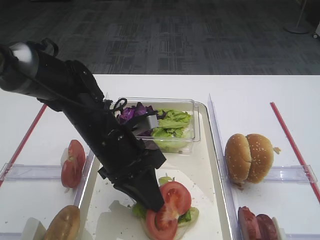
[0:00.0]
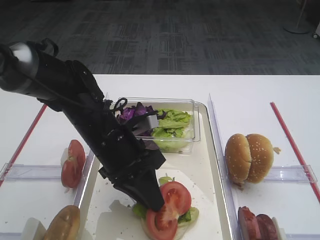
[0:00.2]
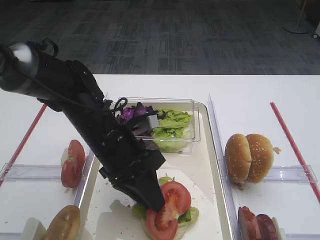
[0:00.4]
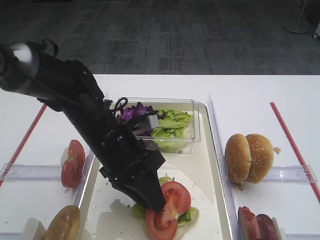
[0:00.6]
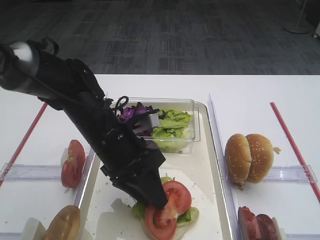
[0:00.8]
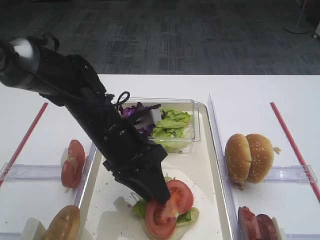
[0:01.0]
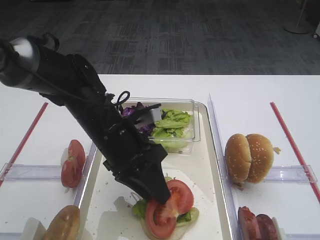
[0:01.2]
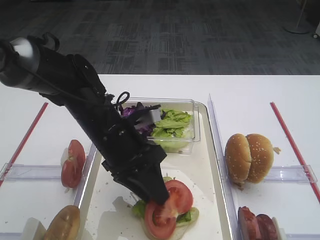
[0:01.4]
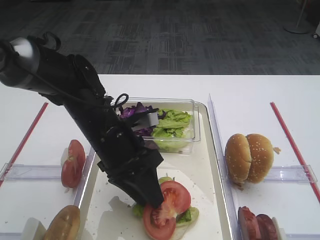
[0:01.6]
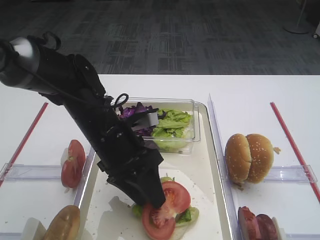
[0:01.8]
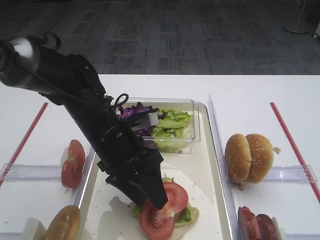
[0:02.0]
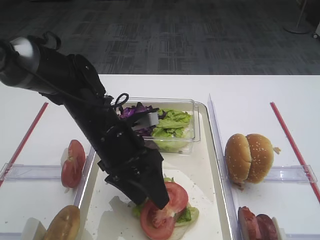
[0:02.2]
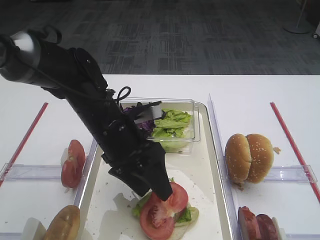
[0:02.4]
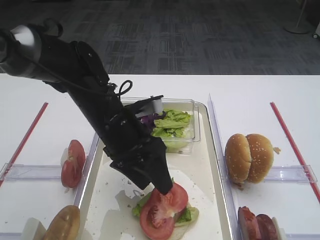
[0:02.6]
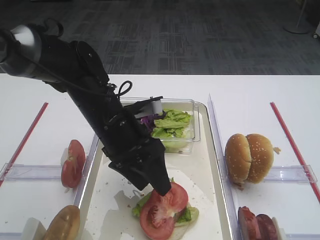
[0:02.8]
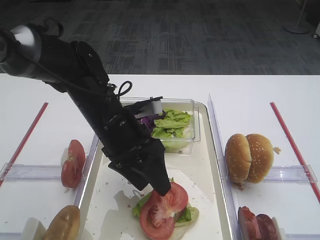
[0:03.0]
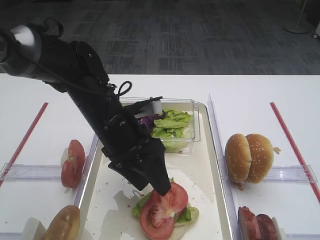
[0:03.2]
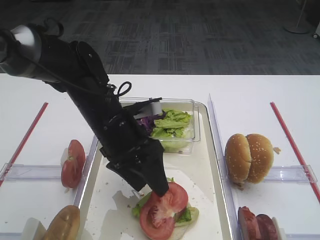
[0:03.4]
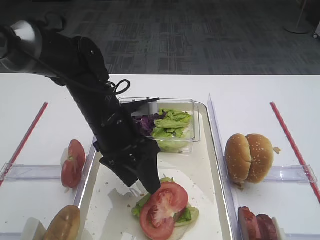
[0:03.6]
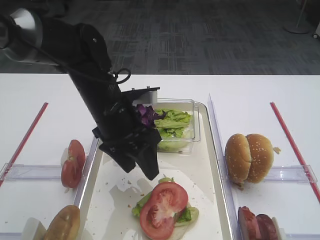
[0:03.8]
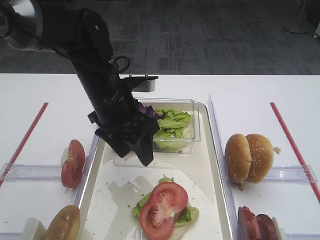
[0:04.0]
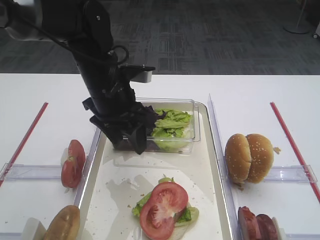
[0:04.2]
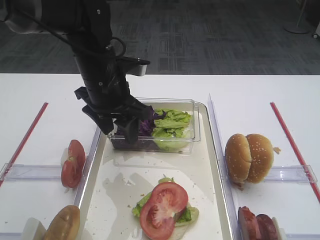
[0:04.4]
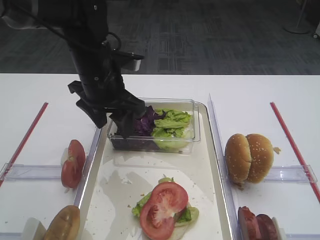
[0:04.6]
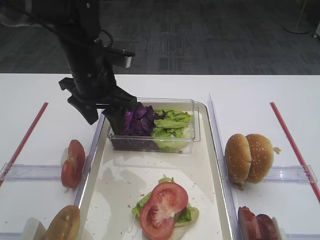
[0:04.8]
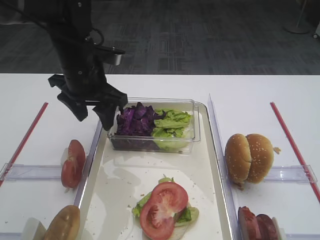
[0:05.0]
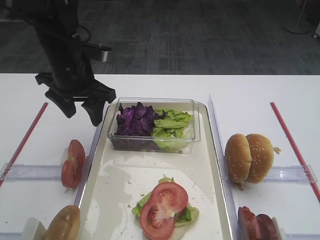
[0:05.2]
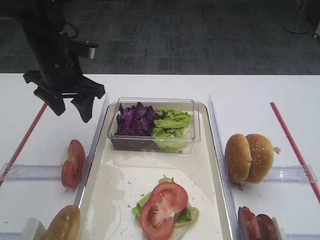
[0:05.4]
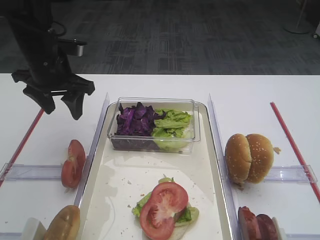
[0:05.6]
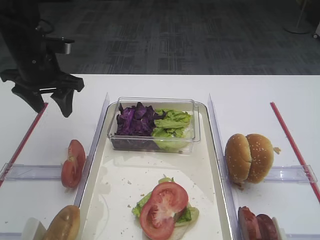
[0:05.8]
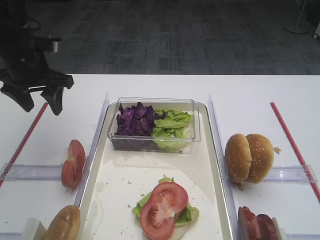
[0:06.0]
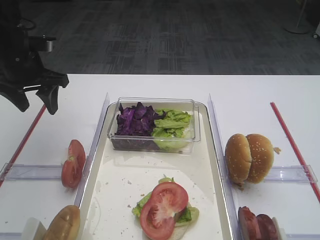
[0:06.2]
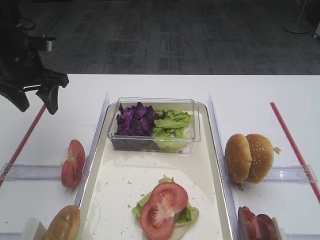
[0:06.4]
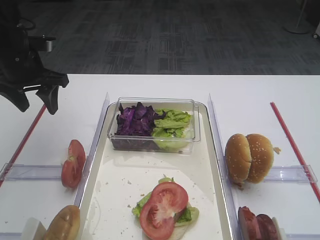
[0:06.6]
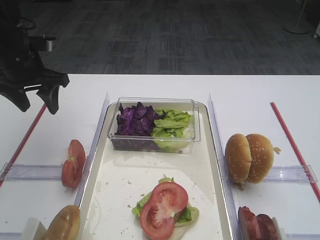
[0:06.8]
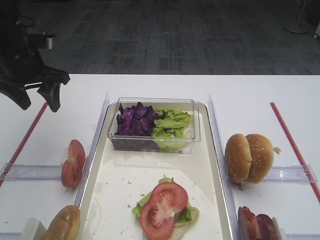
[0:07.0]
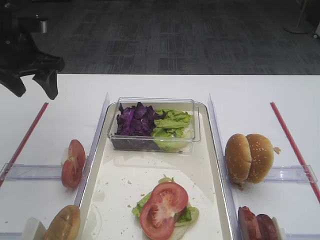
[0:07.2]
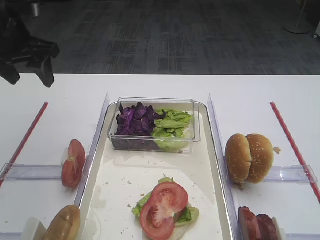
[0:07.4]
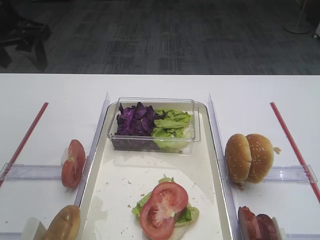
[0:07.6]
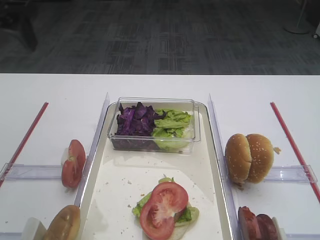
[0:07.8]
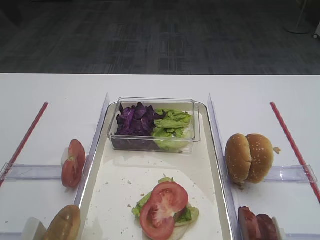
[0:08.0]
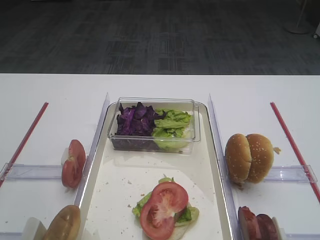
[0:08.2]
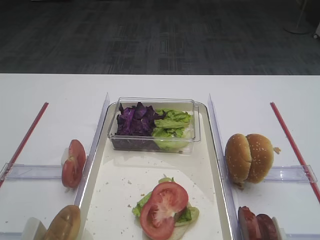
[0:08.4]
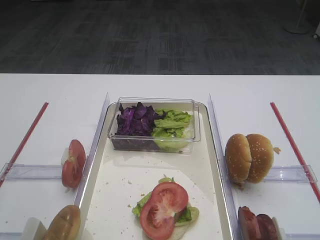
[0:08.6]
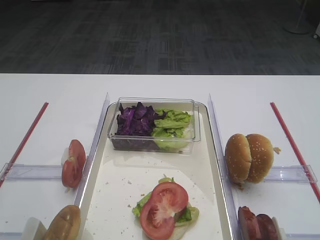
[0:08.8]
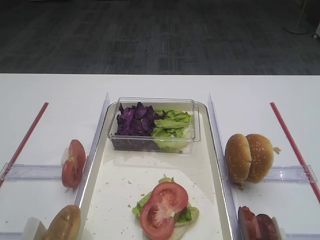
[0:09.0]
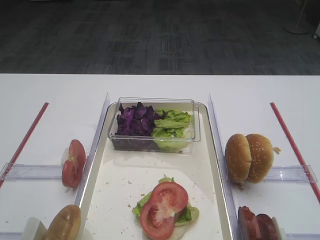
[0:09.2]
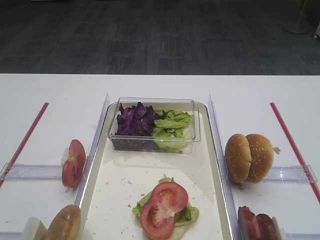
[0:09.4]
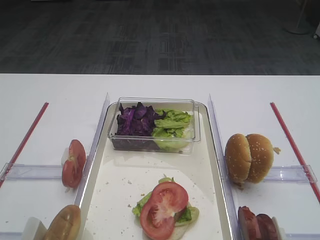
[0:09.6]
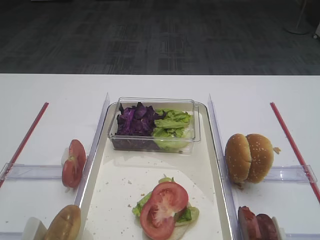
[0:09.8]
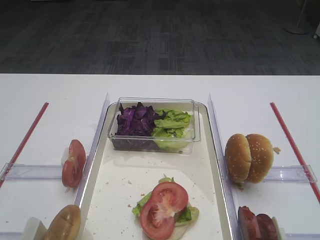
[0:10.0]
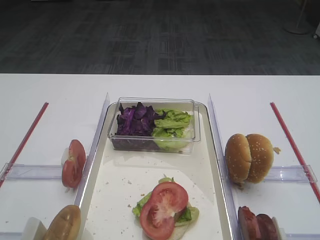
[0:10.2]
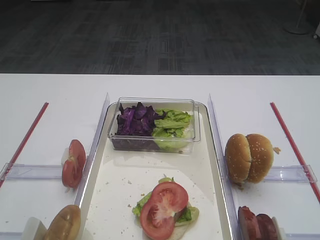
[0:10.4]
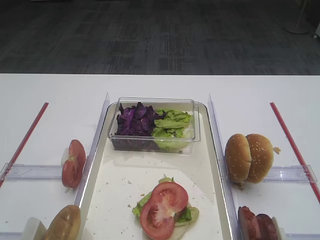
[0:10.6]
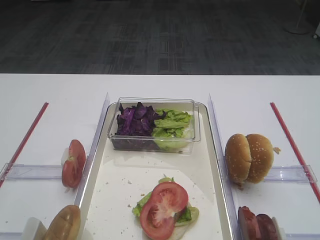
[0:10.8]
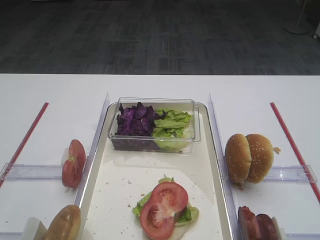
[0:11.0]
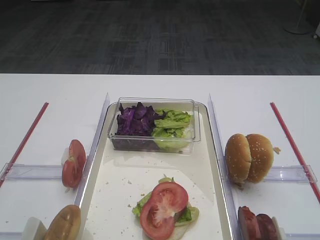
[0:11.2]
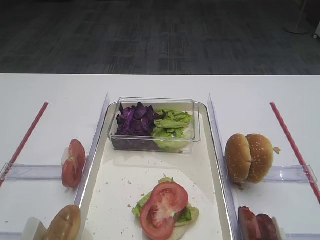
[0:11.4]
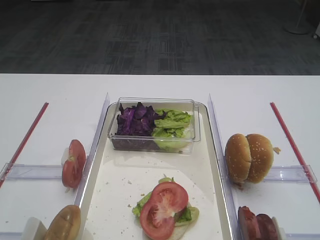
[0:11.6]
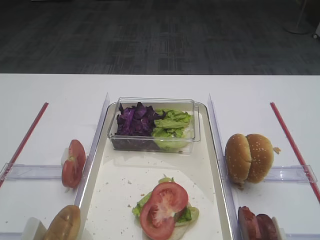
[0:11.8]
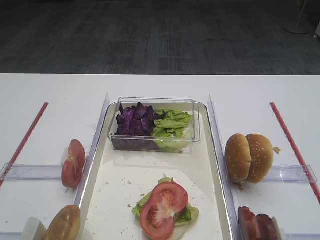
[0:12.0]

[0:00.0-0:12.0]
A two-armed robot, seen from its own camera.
Step, 0:00.0 to 0:02.8: Place the tomato slice on the lettuce leaf with the left gripper.
0:00.0 to 0:01.6: Neither gripper changes place.
0:01.6 to 0:03.0: The left gripper opens its fingers.
0:03.0 to 0:04.4: The left gripper moves forward and upward, roughly 10 cm.
0:04.4 to 0:06.0: The left gripper heads to the left, covering about 15 cm.
0:06.0 to 0:07.6: The left gripper moves upward, approximately 10 cm.

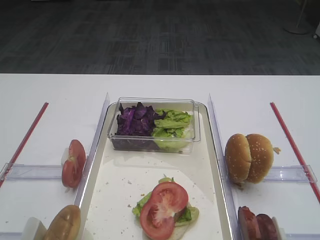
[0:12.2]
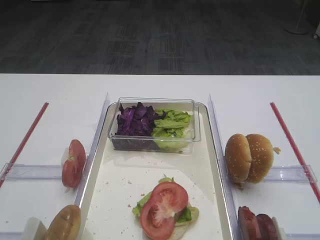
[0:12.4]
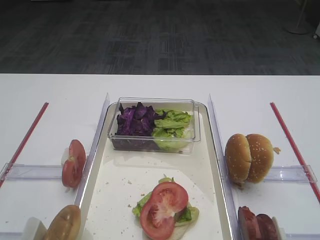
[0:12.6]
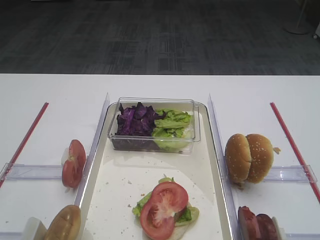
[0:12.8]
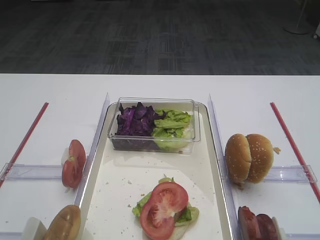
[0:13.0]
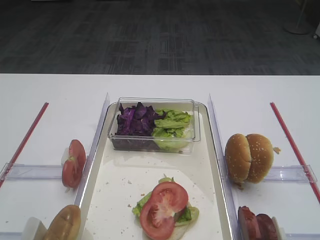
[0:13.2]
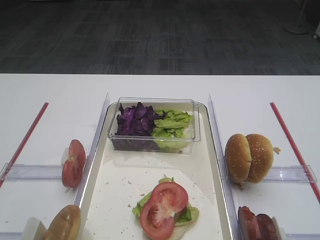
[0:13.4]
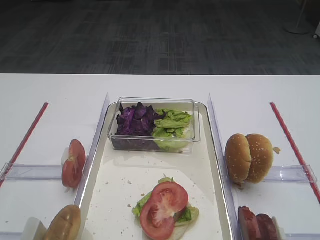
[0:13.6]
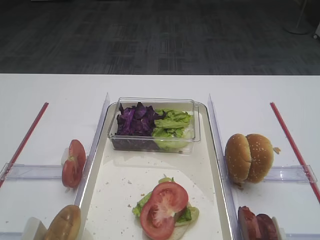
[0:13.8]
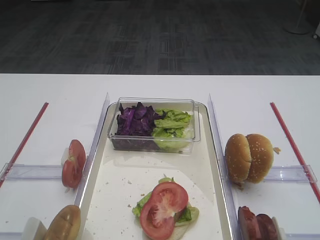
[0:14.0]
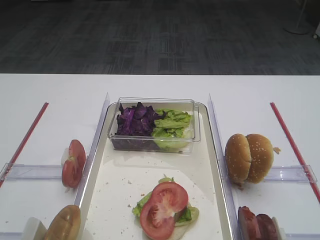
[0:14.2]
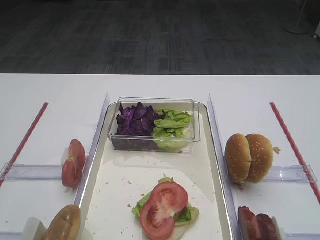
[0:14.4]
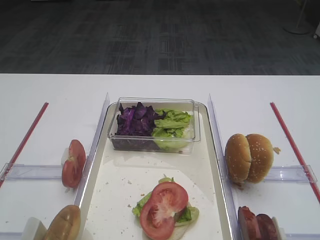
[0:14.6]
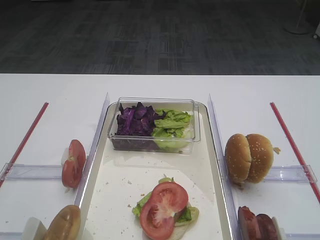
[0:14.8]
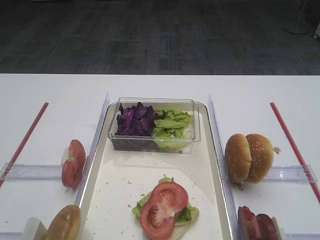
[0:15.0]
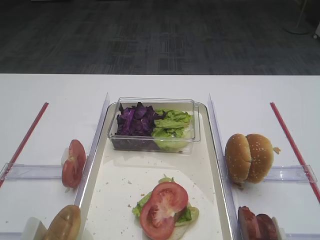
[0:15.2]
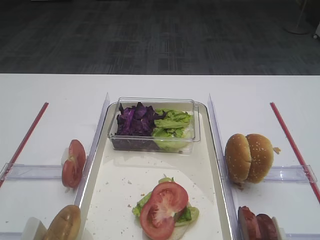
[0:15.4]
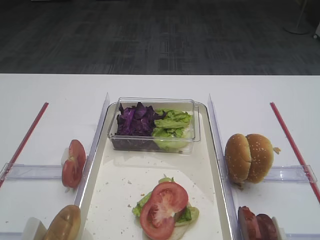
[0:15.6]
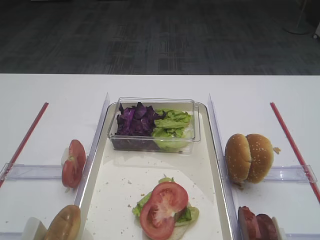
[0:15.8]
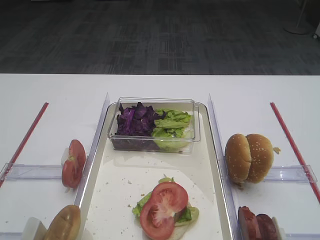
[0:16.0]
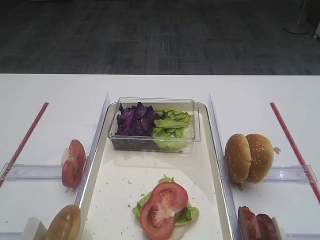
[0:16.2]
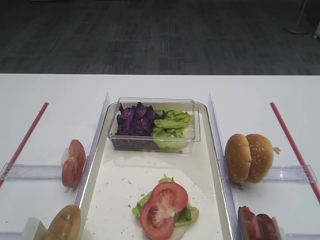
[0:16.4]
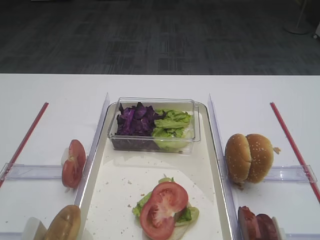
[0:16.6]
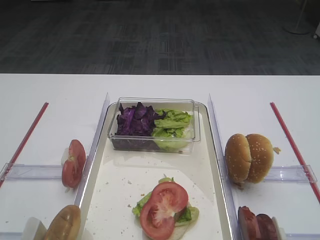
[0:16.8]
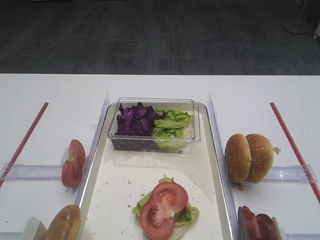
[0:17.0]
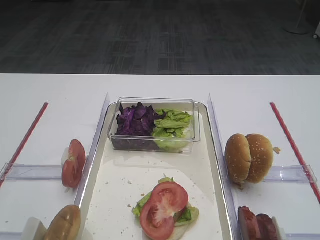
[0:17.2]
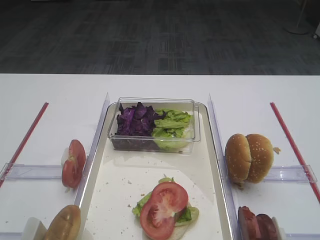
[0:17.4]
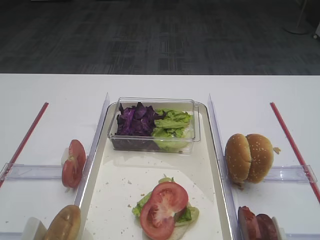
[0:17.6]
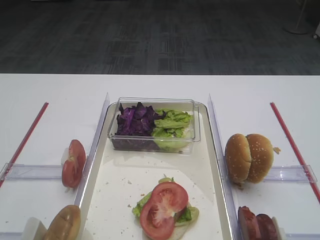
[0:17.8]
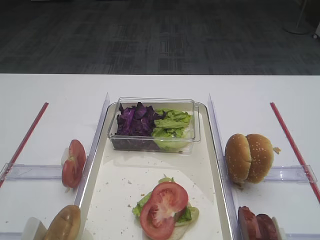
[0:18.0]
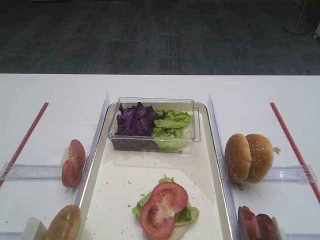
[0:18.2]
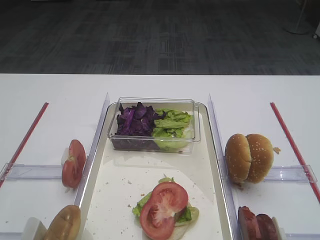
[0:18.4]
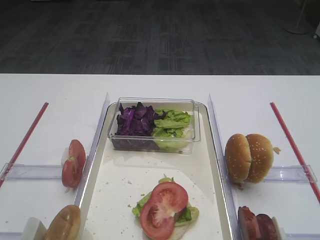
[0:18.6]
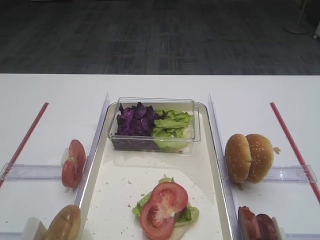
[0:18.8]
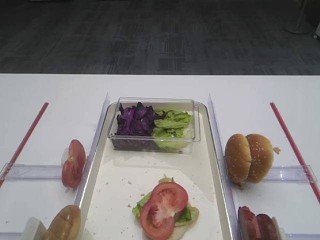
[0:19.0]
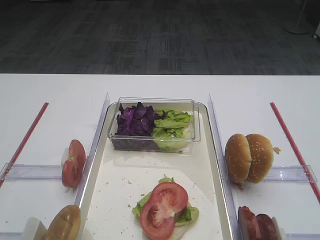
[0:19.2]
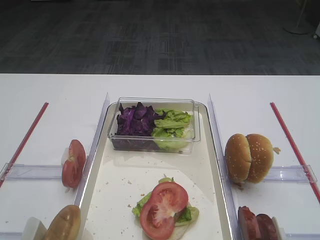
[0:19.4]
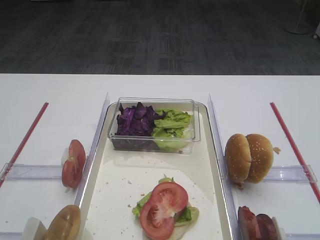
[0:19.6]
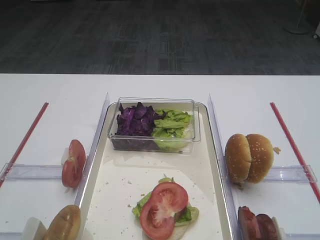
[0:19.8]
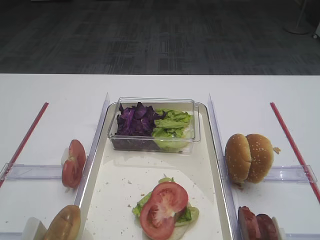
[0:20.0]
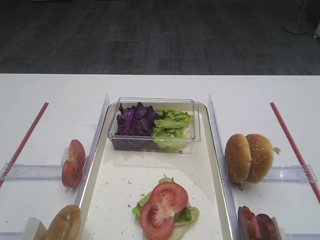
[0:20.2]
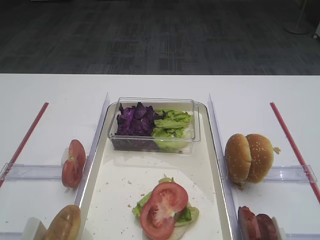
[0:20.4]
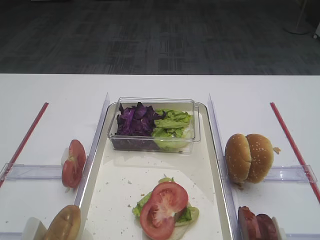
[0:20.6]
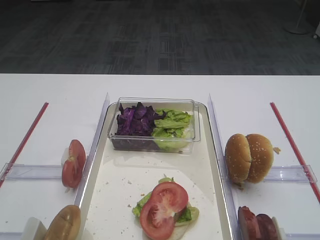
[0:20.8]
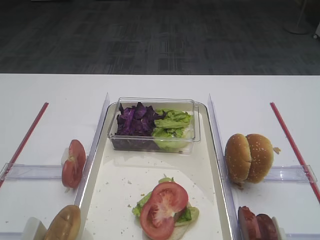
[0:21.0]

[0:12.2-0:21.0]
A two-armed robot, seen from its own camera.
0:13.6 to 0:21.0: Both grippers stay about where they are.

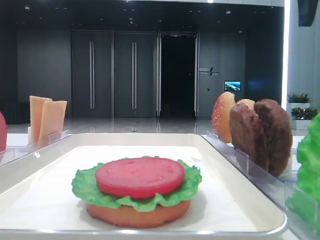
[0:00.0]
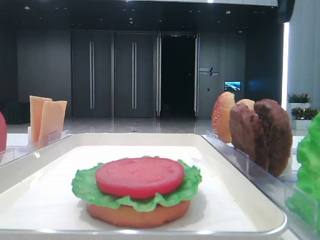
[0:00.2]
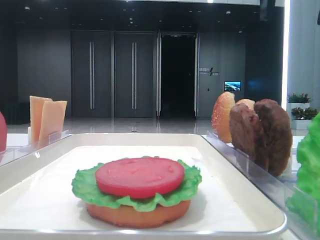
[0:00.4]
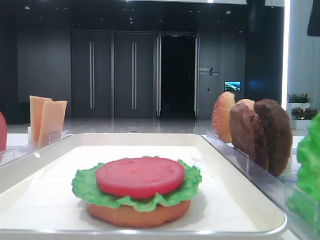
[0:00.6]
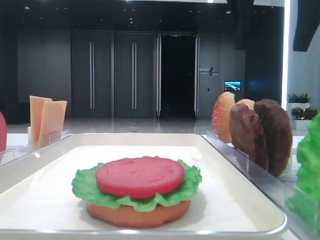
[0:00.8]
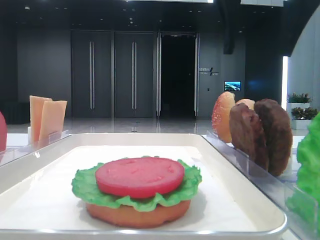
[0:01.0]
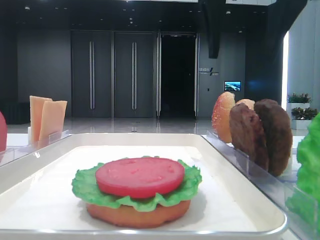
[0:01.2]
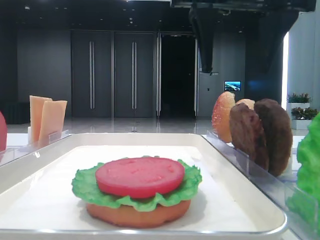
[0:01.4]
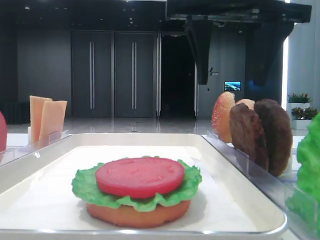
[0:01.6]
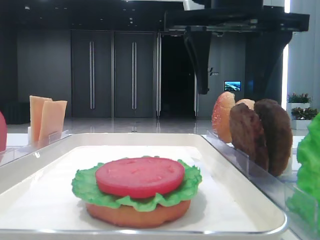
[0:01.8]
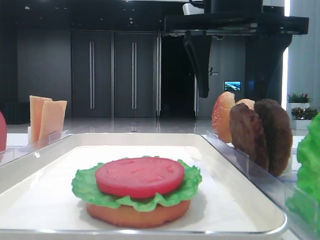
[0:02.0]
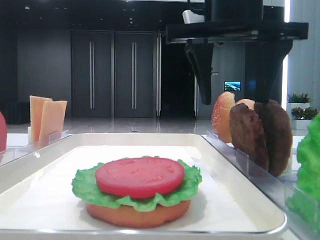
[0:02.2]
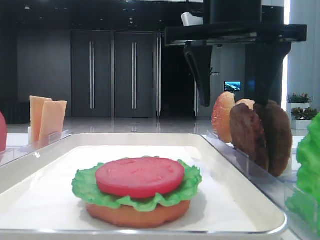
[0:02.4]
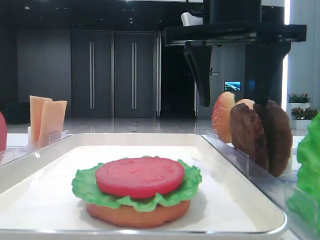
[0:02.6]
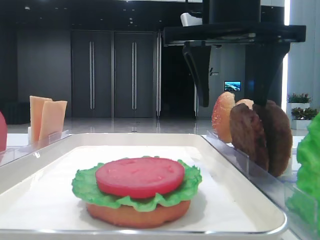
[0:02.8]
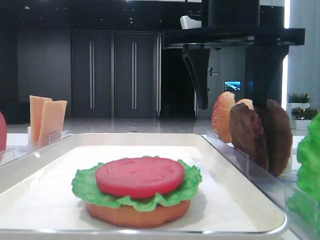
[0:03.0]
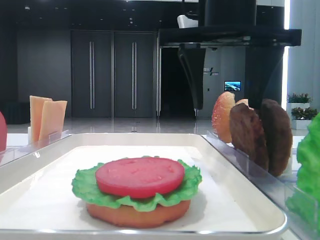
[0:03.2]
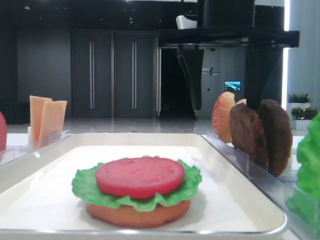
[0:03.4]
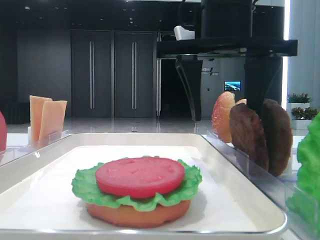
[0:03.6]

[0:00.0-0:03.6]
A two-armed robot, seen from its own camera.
0:00.0 to 0:01.8: The right gripper heads to the left and downward, covering about 15 cm.
0:01.8 to 0:03.6: The grippers stay close to where they were, moving slightly.
